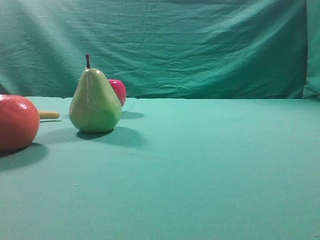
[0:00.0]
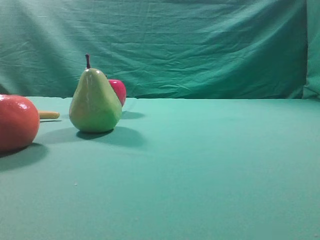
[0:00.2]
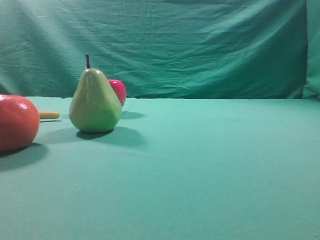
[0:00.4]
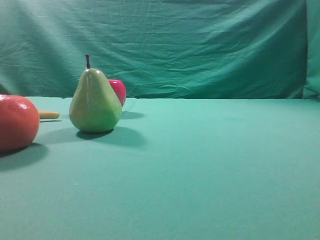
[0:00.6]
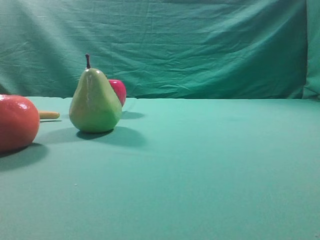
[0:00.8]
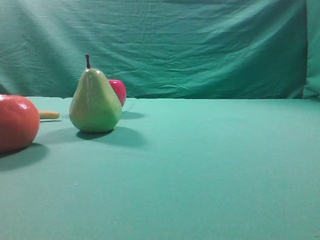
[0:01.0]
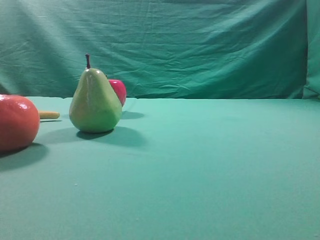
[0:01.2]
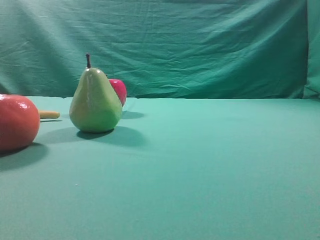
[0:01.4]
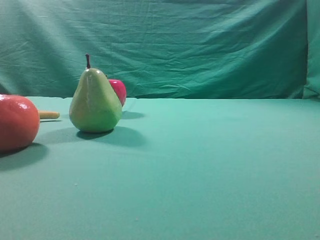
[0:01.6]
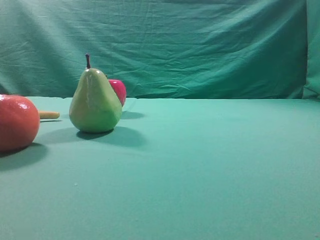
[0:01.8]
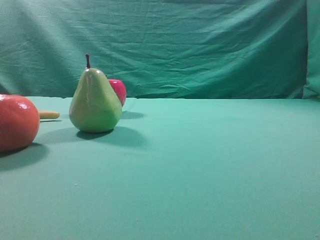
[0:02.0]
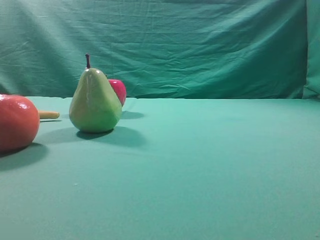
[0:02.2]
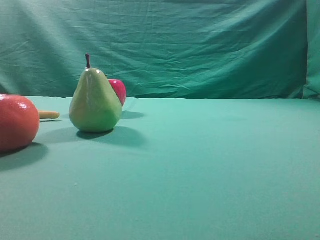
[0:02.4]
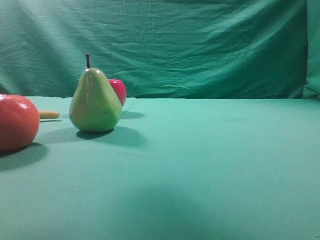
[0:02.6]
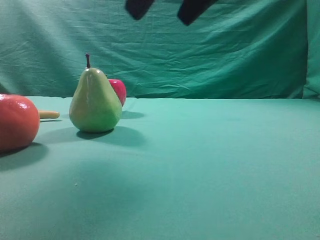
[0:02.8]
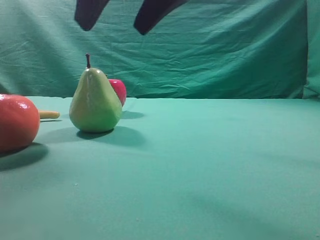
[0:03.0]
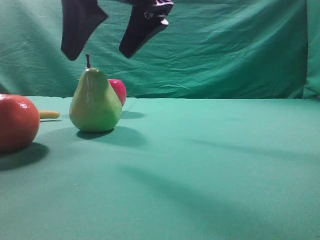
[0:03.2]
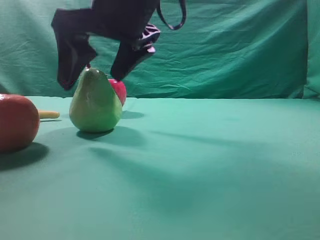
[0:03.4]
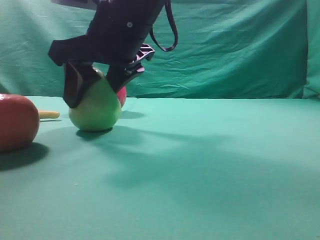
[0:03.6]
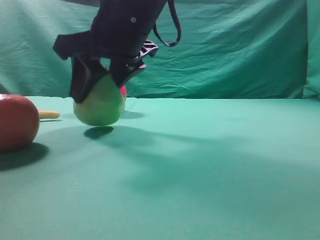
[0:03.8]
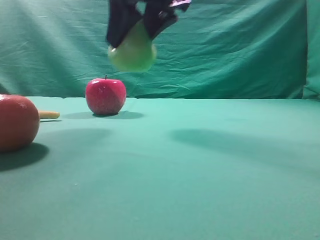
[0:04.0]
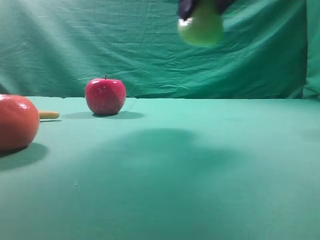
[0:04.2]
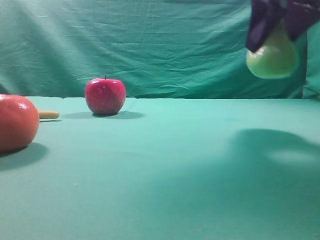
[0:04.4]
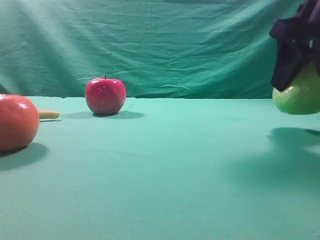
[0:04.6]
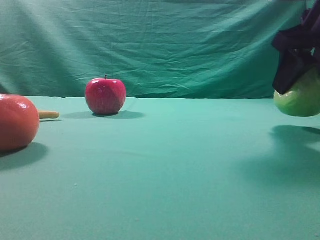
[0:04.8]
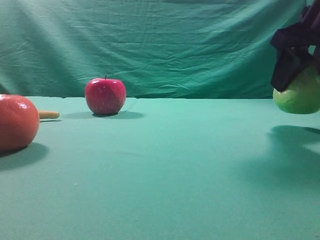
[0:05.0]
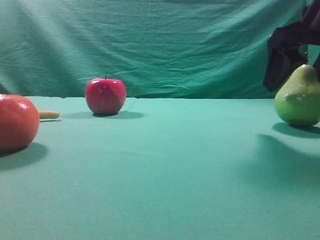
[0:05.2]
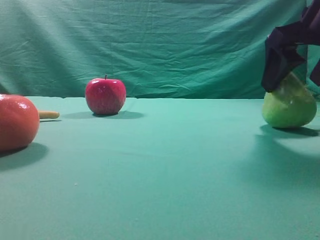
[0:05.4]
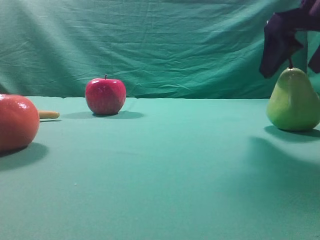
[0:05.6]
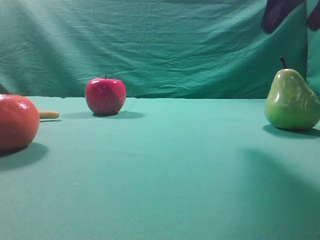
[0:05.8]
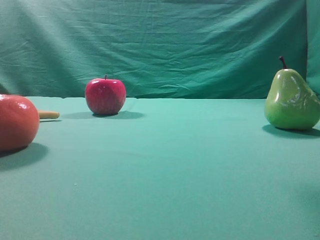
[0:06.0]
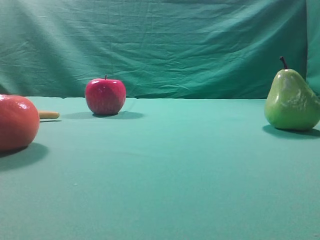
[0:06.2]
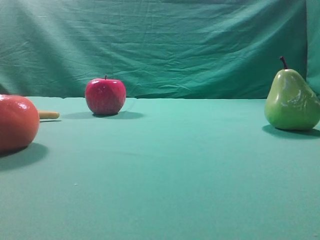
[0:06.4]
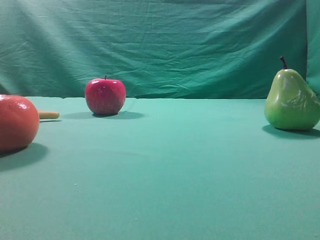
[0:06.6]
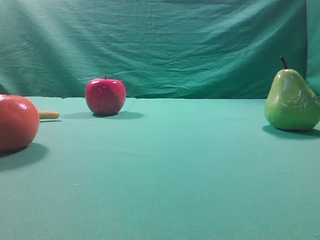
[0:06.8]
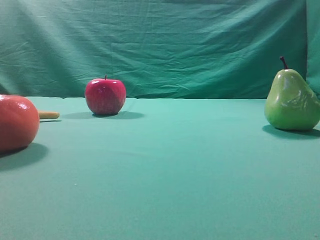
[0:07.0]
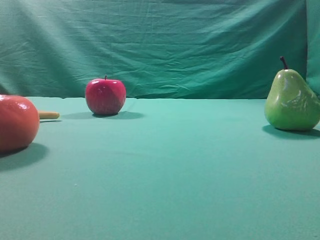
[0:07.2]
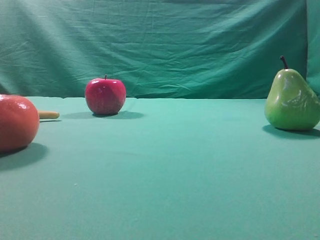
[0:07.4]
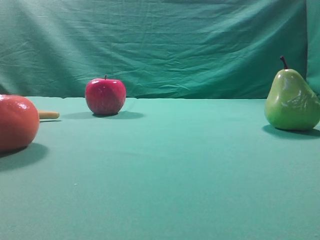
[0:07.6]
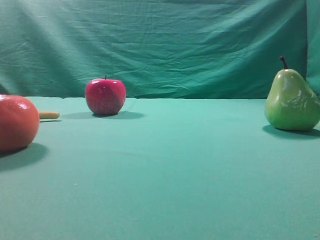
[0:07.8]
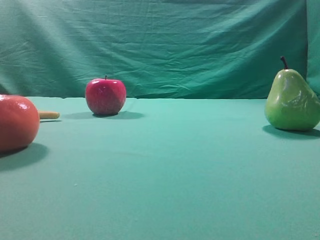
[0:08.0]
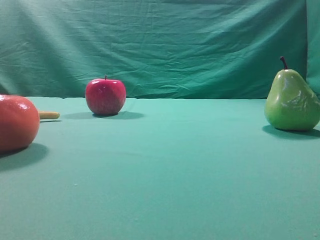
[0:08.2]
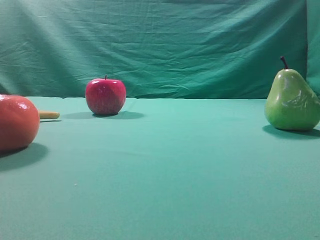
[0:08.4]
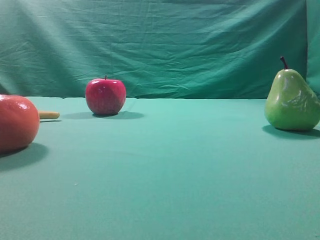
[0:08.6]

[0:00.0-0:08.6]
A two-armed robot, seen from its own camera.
Task of the whole recording: Grasp the pear and place it on one side of the table.
Step, 0:00.0 to 0:03.8: Grasp the high-fiber fruit.
Step, 0:04.0 to 0:05.4: Place it on the right side of the table.

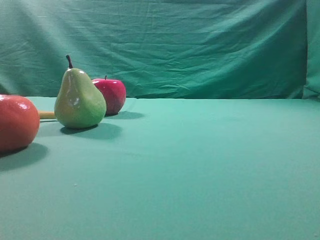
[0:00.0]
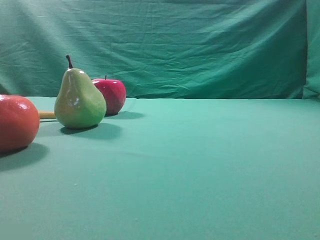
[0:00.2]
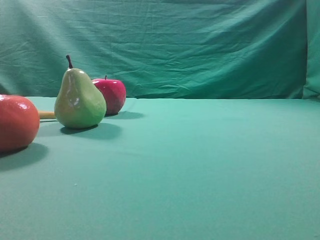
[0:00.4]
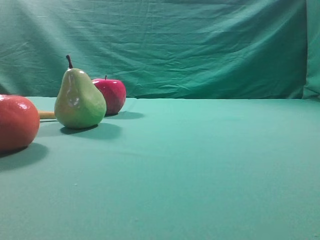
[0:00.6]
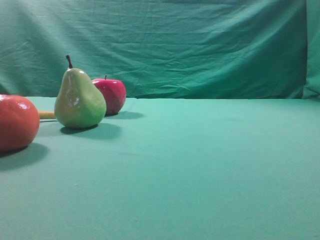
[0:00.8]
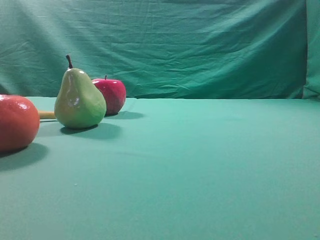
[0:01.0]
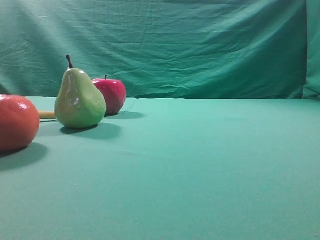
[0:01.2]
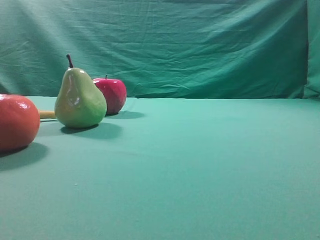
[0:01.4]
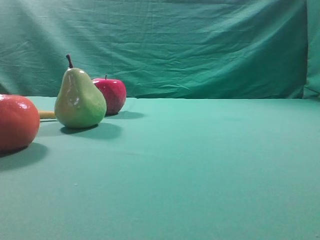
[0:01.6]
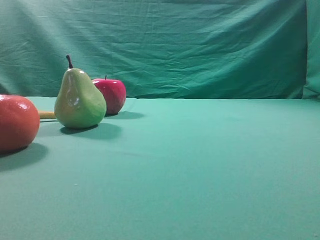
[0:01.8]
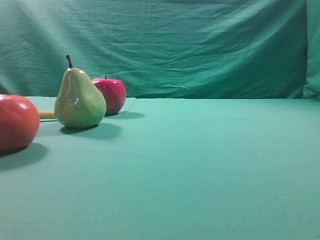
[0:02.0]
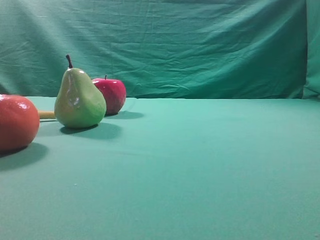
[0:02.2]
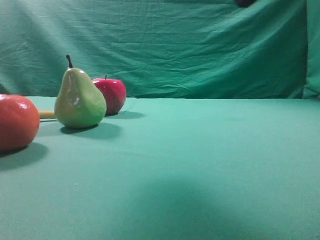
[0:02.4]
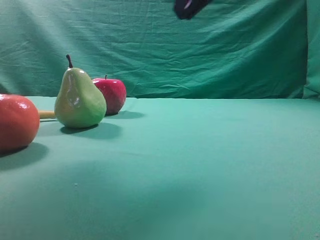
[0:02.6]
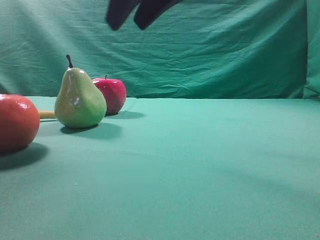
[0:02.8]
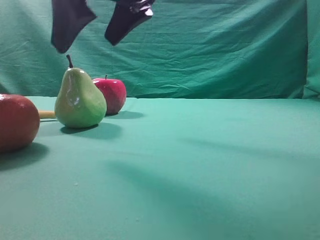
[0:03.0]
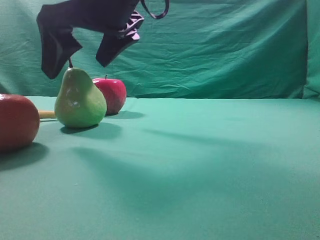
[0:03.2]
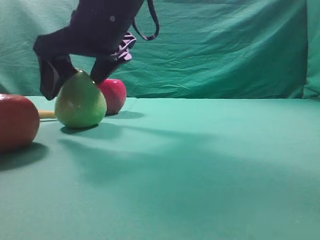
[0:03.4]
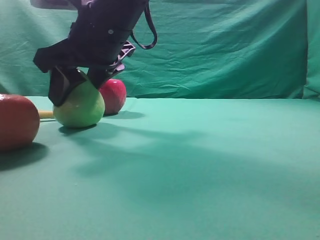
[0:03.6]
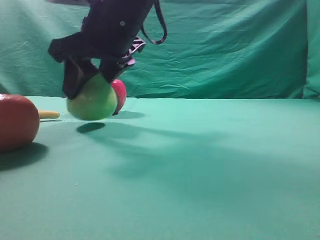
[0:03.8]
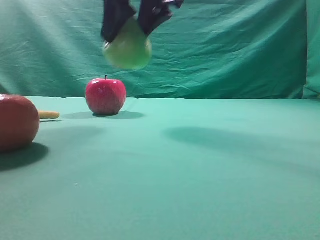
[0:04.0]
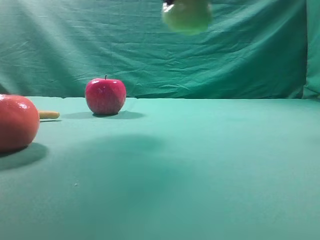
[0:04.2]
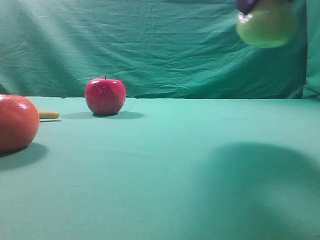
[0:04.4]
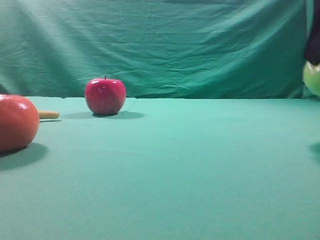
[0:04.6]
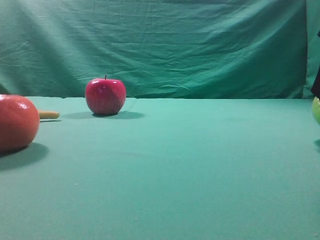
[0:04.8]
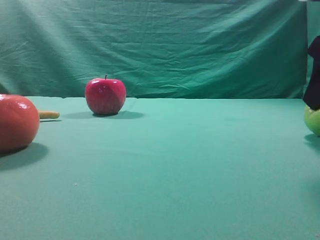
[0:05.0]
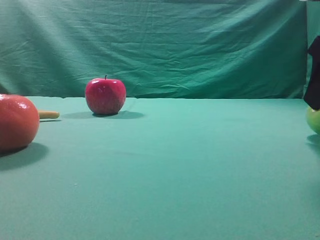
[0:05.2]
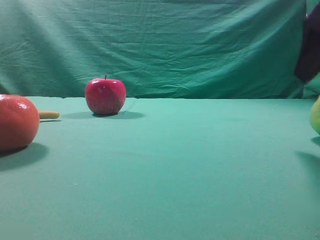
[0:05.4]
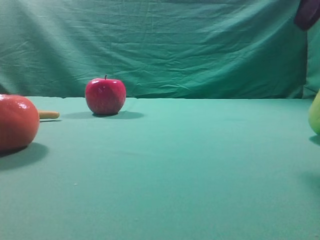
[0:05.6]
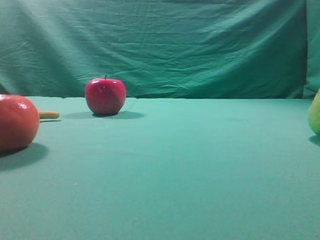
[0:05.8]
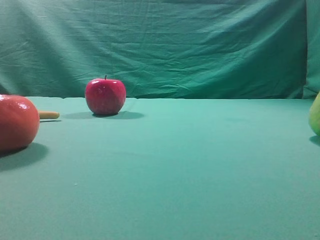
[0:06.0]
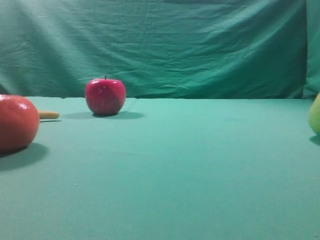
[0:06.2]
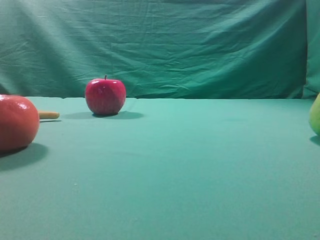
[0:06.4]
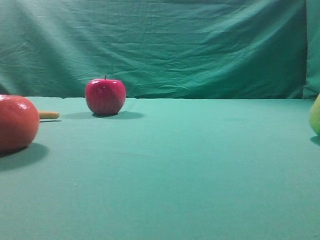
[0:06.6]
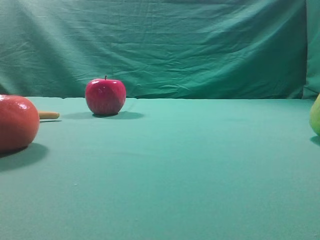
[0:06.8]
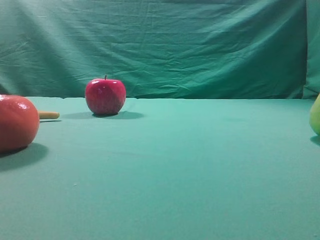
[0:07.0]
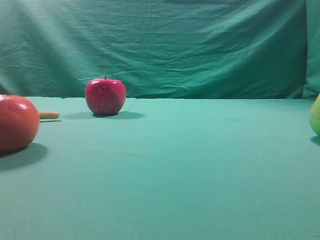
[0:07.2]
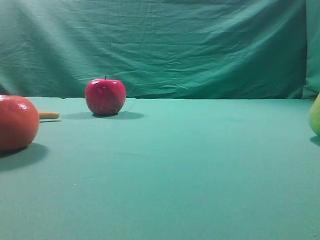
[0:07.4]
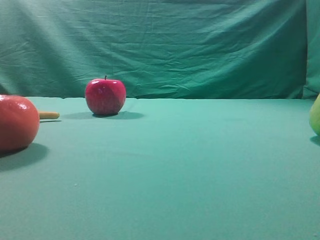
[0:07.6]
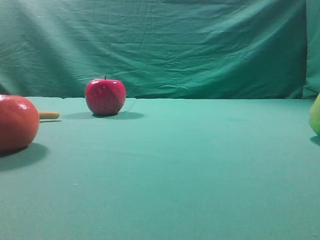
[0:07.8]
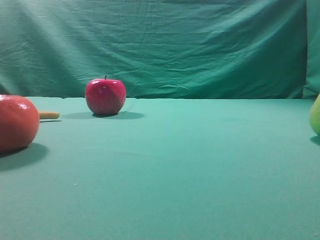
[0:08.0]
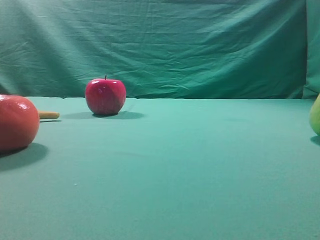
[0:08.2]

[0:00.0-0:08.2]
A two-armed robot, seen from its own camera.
Task of the whole recording: Grasp the pear and place it on one side of the table.
Step, 0:00.0 to 0:03.8: Grasp the high-fiber fruit.
Step, 0:04.0 to 0:05.4: Place it on the right side of the table.
